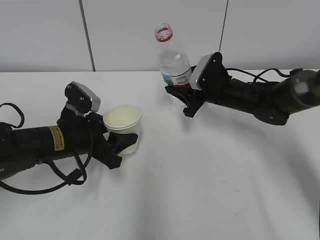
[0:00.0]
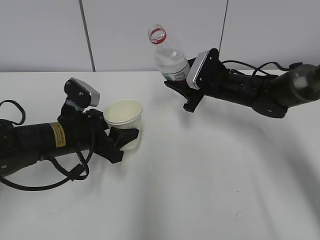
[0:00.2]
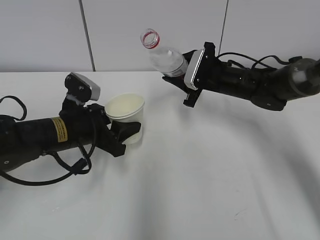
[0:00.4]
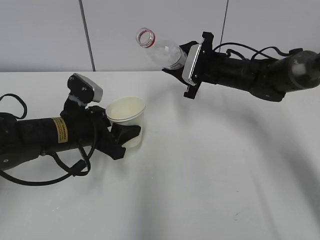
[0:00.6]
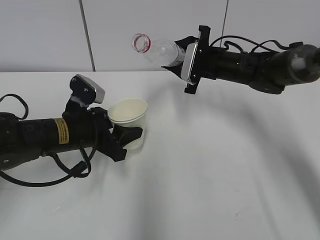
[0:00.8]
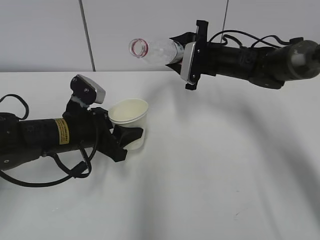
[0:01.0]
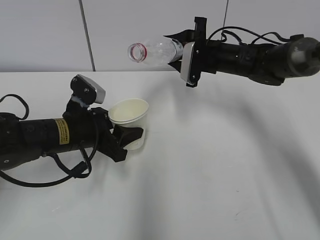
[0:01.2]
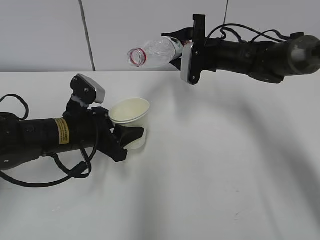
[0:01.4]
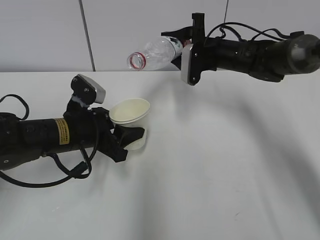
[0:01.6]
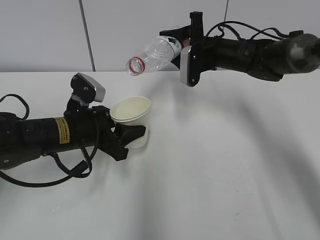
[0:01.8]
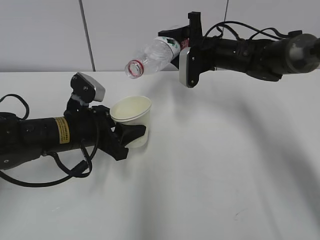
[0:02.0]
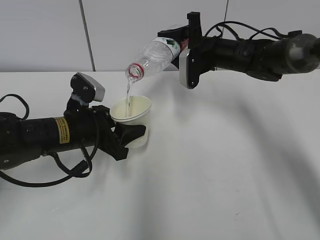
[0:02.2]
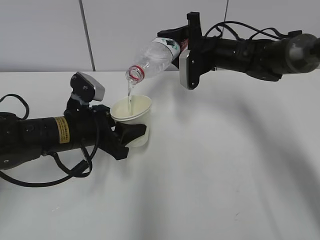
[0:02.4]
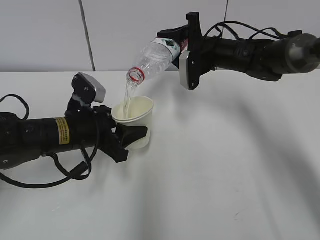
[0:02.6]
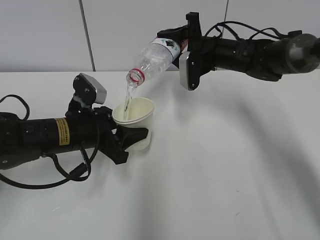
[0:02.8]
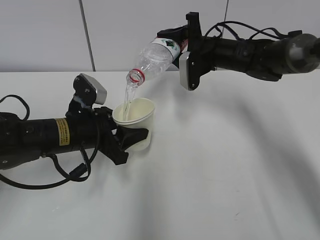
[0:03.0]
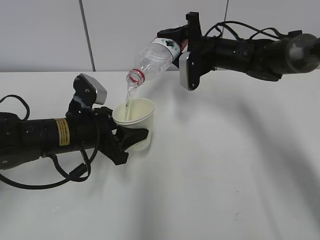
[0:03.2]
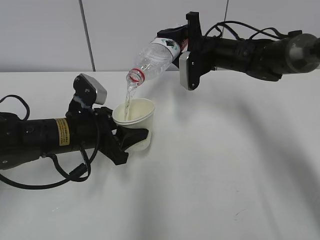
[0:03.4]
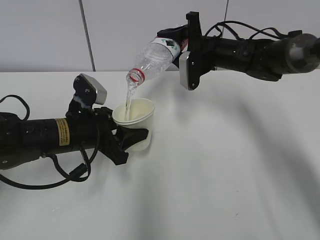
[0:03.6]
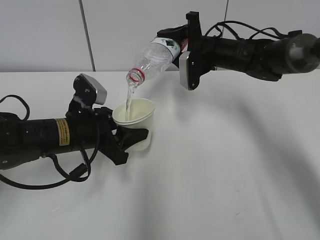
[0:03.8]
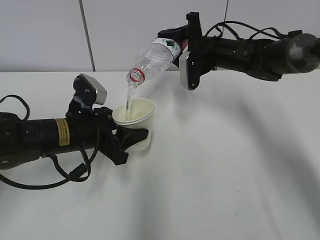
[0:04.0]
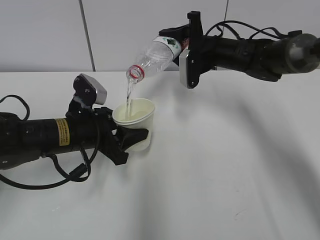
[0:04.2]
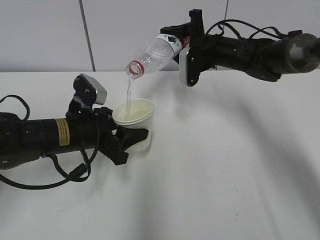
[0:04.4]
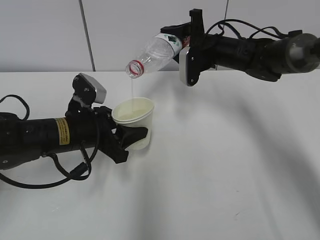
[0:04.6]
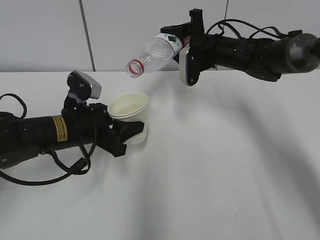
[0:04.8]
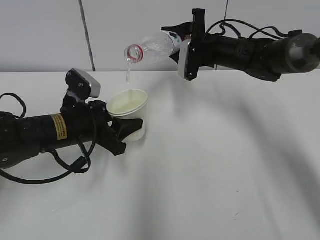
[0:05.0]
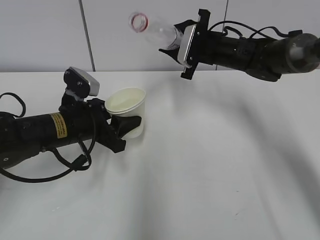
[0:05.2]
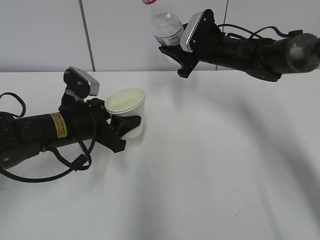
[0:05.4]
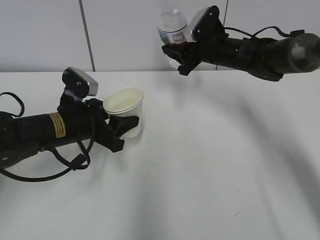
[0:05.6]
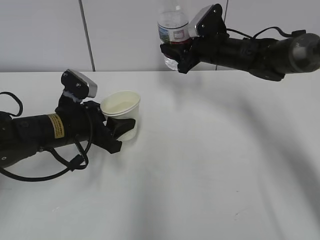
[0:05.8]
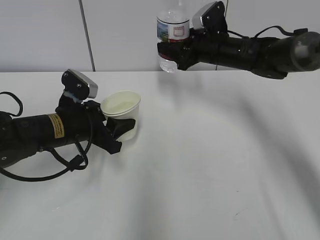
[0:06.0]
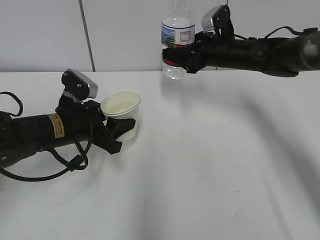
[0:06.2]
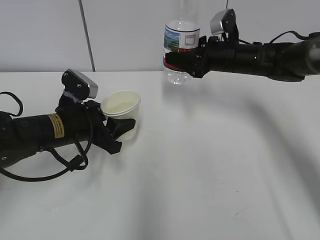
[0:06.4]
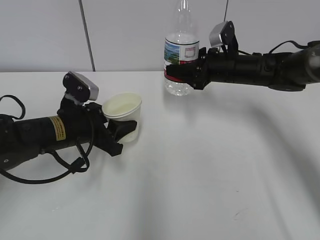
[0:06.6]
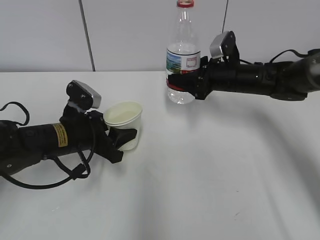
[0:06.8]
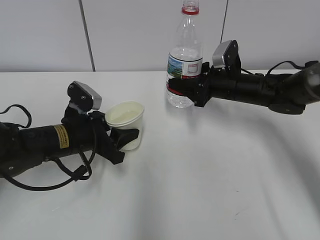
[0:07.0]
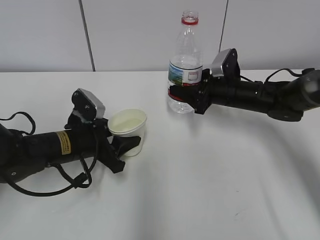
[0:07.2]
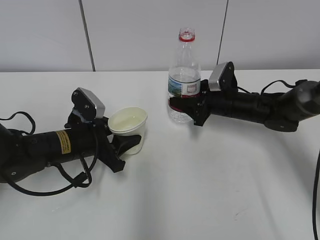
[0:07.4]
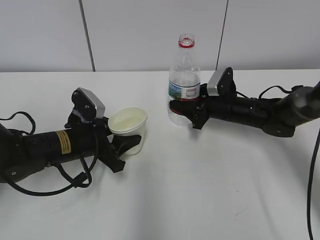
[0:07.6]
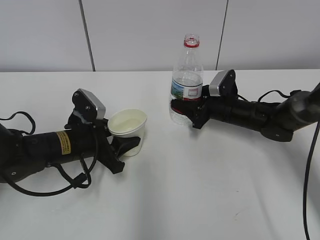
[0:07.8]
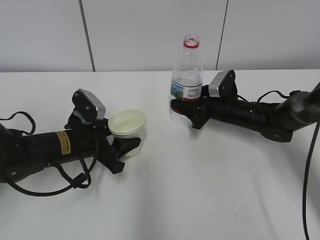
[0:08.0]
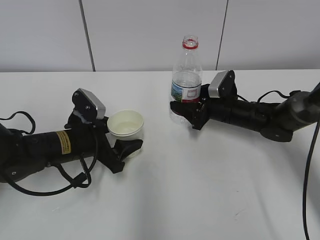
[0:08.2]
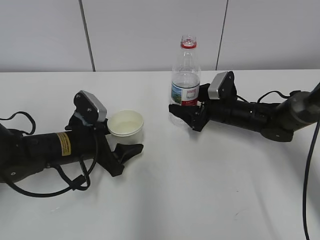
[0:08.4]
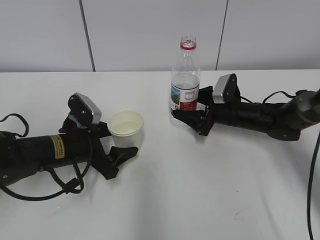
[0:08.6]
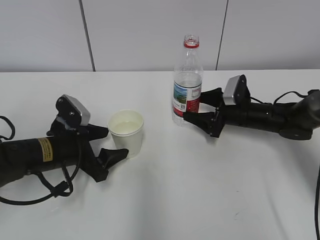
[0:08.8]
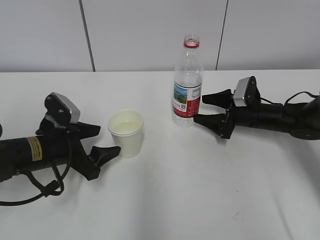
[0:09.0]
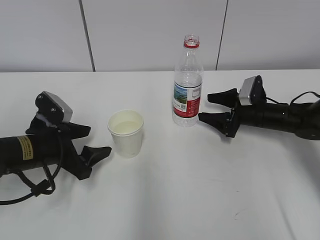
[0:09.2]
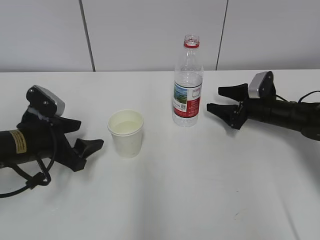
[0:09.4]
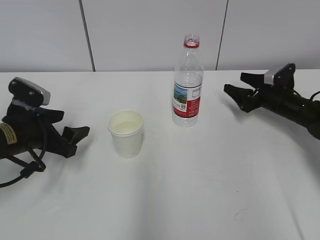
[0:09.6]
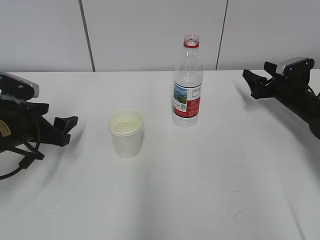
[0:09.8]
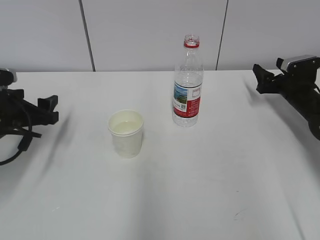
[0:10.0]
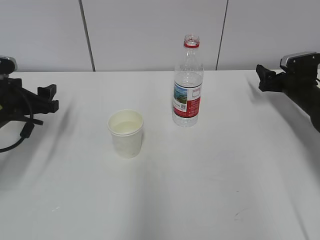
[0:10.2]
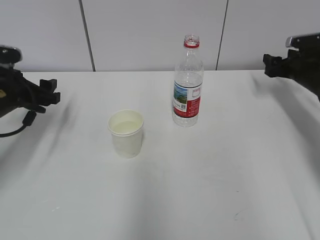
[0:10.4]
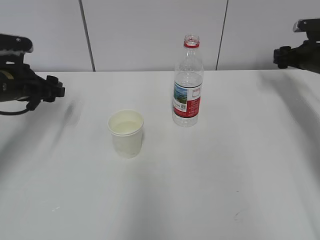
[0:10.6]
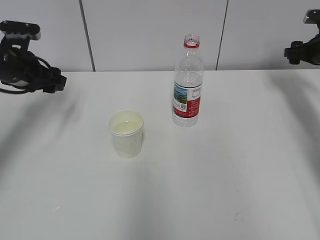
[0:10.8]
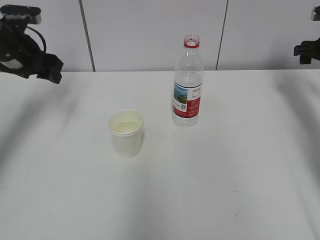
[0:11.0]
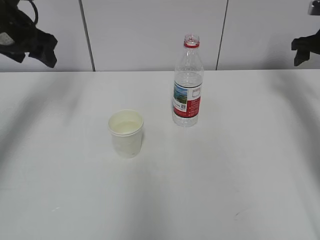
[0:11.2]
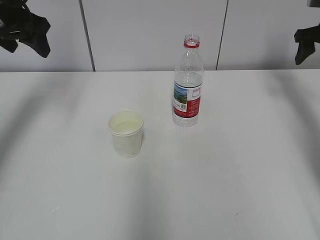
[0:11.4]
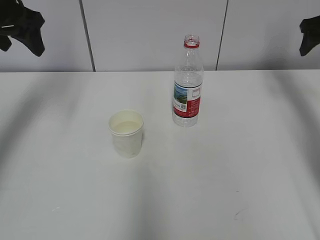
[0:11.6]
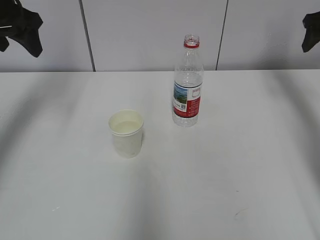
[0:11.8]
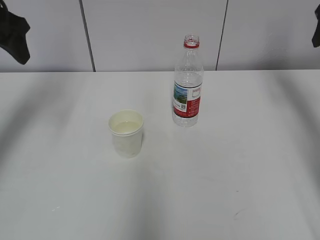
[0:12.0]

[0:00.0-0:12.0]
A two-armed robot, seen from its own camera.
Step, 0:00.0 to 0:01.8: Fill water with the left hand.
Step, 0:00.0 to 0:01.8: Pour water with the right hand.
0:00.0 to 0:01.6: The right gripper is displaced upward by about 5 cm.
0:01.6 to 0:03.0: There are only small adjustments of the grippers.
0:03.0 to 0:04.4: Both grippers stay put.
0:06.0 to 0:07.6: The right gripper goes approximately 10 cm downward.
0:07.6 to 0:09.0: The right gripper is displaced to the right by roughly 5 cm, and opens its fingers. Meanwhile the left gripper opens its fingers.
0:09.0 to 0:10.4: The right gripper is displaced to the right, upward and forward by about 15 cm. Meanwhile the left gripper heads to the left, forward and upward, covering approximately 10 cm.
0:10.4 to 0:12.0: The two grippers go about 20 cm upward.

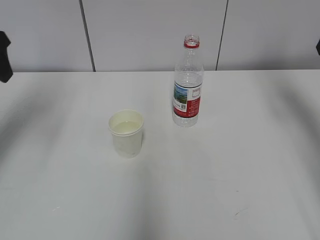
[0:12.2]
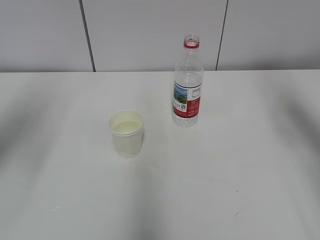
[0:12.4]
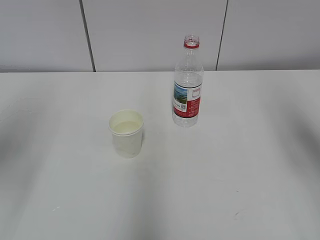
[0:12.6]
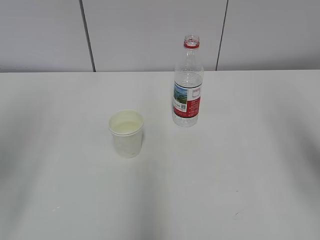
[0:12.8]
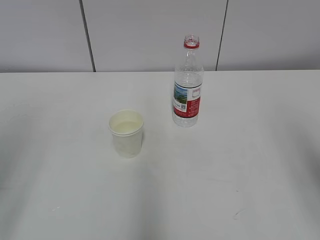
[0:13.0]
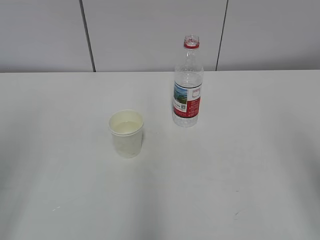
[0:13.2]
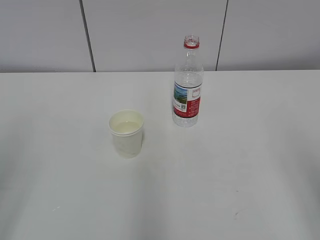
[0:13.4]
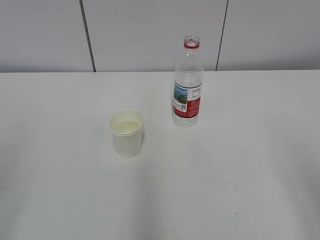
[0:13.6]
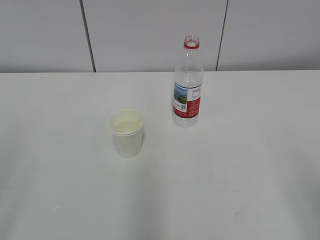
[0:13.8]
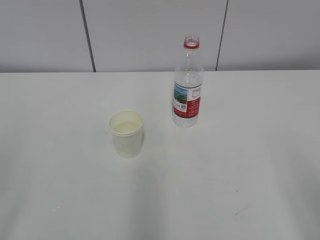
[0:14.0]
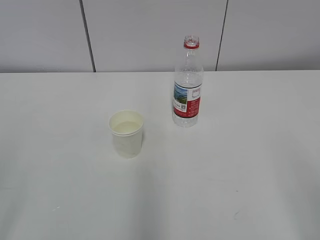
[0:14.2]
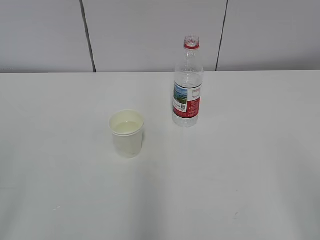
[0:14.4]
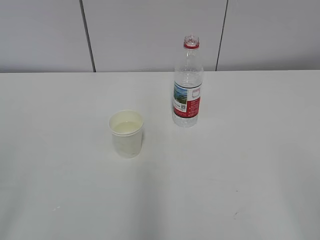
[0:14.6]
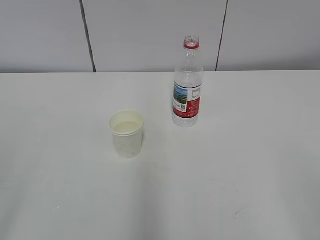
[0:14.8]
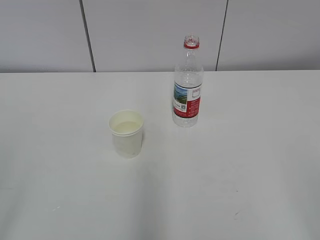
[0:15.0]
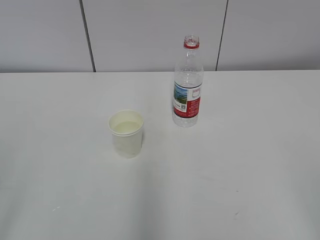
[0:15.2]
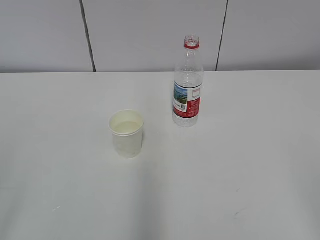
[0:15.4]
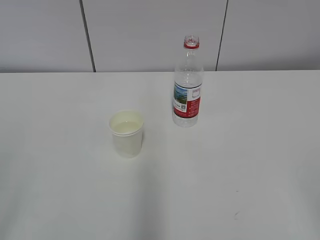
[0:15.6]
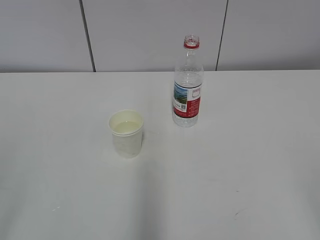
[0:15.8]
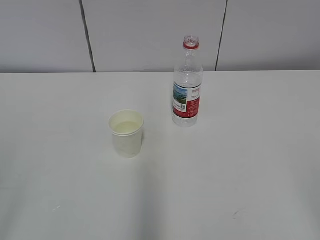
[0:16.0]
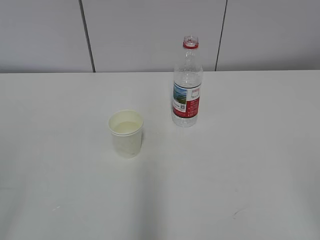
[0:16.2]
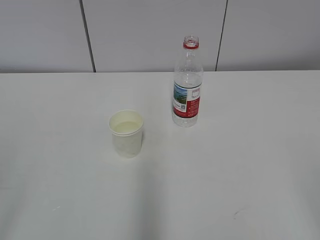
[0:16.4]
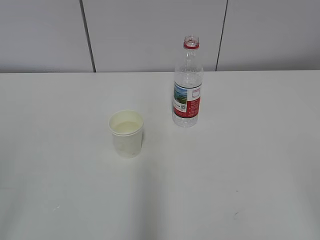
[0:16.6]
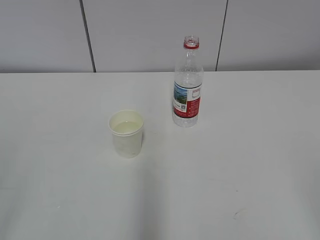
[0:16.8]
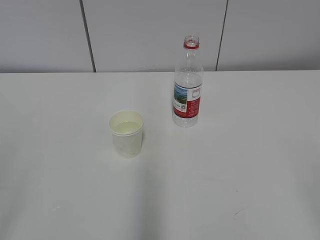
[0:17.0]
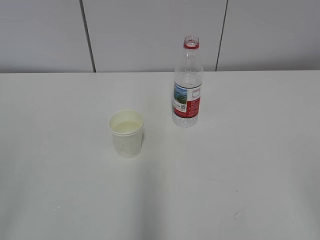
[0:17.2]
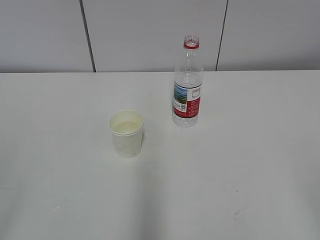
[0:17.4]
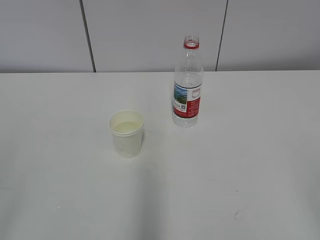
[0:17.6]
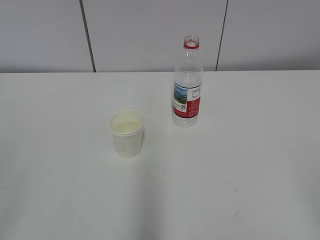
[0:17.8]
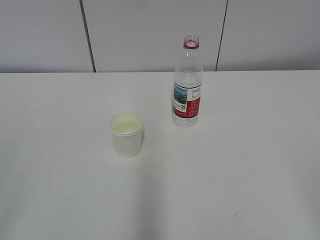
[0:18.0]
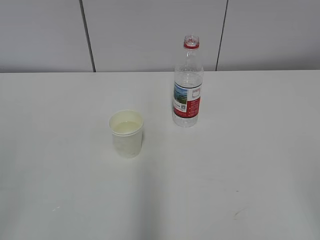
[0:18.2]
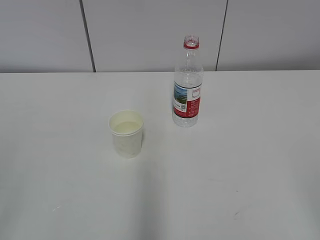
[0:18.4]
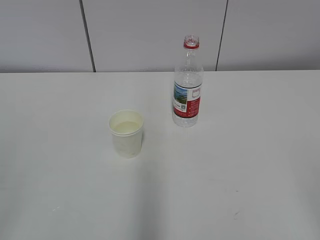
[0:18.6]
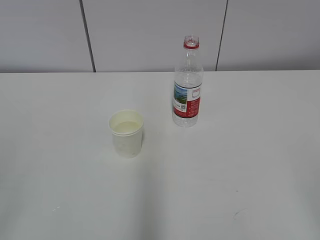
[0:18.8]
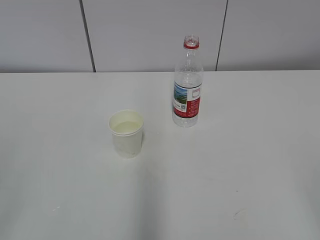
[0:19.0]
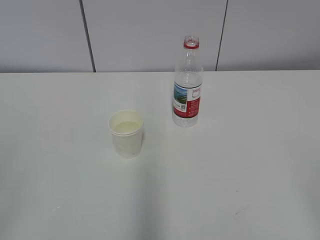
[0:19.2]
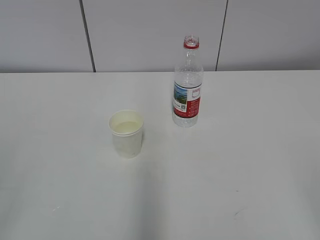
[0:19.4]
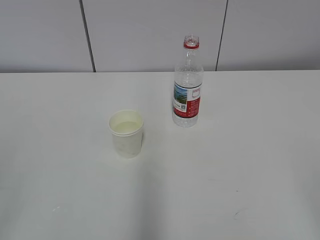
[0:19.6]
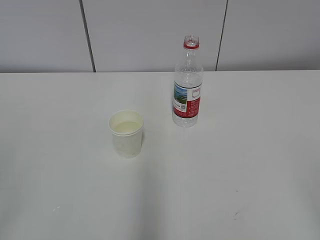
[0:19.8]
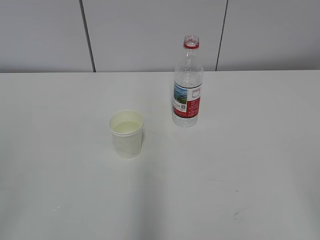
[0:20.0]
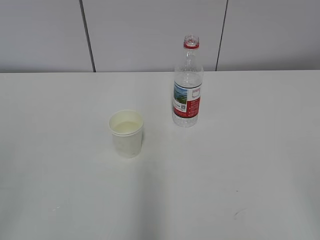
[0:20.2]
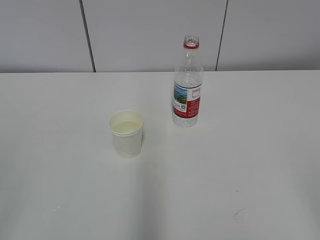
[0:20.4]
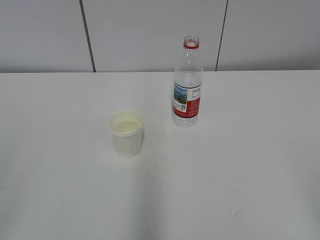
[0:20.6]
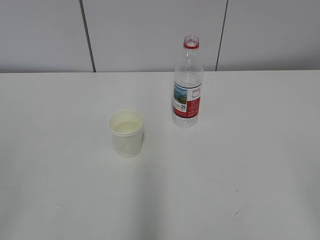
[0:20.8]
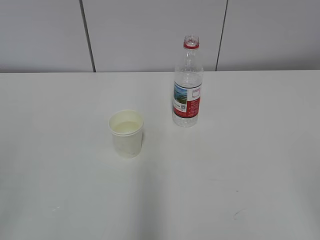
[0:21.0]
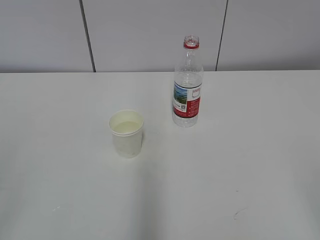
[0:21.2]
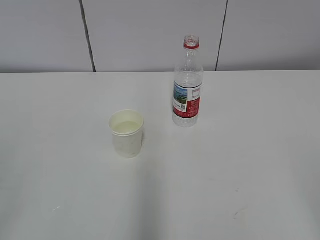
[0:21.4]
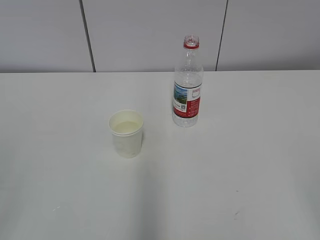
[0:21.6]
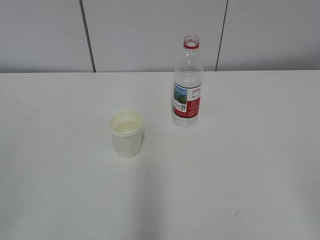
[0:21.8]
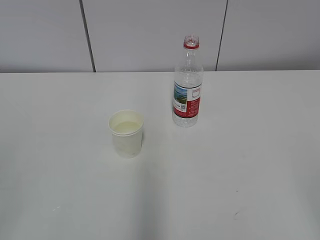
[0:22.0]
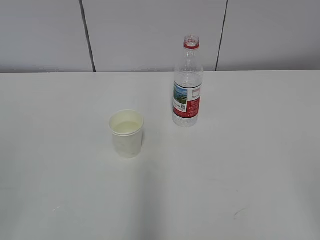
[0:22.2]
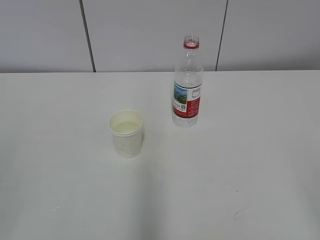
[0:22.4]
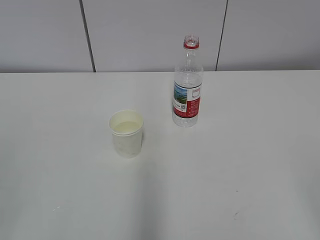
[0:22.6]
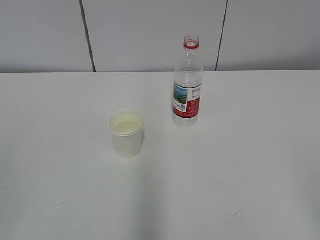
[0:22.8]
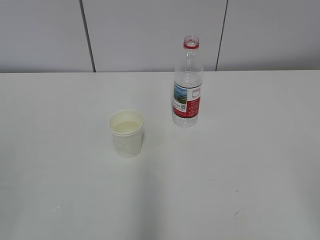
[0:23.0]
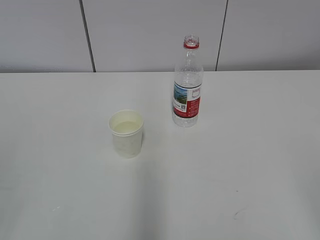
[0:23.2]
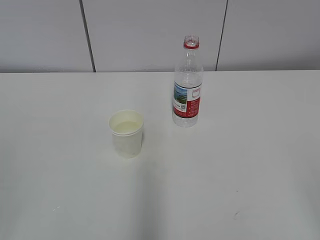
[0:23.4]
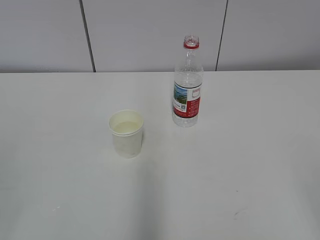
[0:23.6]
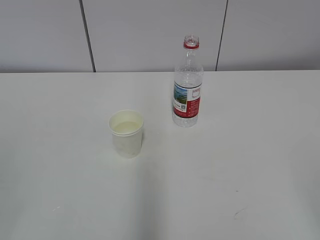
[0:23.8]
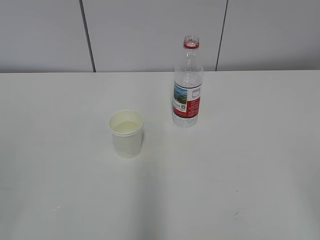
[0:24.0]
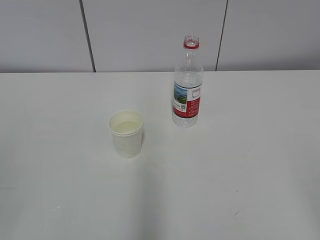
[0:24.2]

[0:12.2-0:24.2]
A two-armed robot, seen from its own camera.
0:12.2 to 0:13.8: Both grippers travel together backward, approximately 30 cm.
0:15.2 to 0:24.2: Both grippers stay put.
